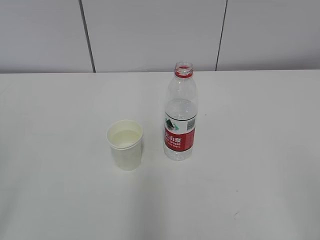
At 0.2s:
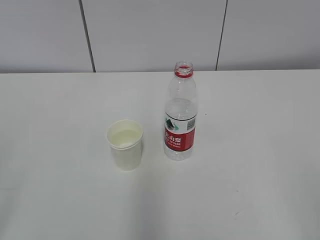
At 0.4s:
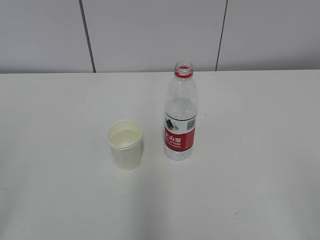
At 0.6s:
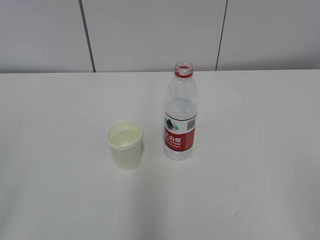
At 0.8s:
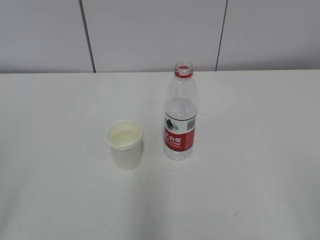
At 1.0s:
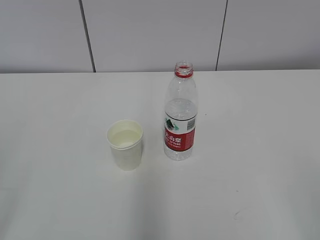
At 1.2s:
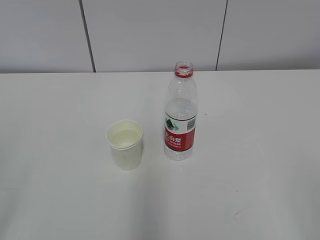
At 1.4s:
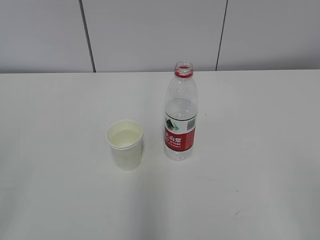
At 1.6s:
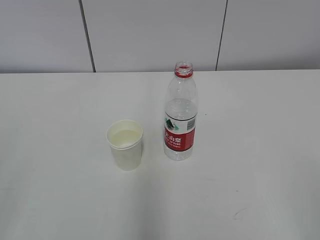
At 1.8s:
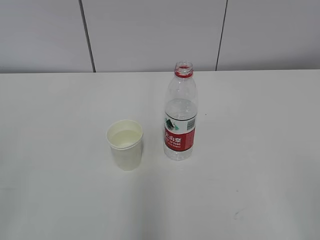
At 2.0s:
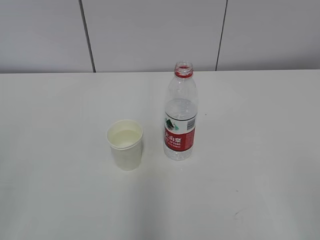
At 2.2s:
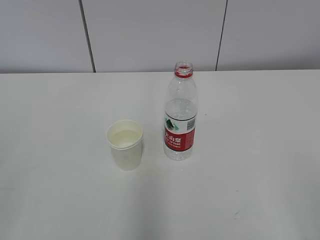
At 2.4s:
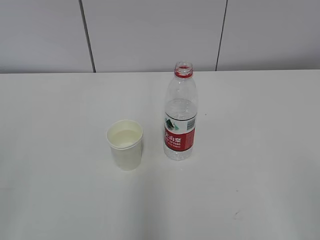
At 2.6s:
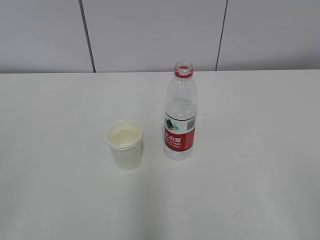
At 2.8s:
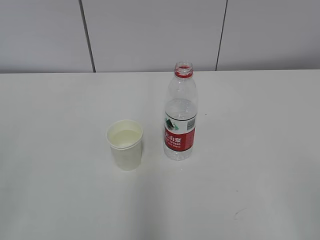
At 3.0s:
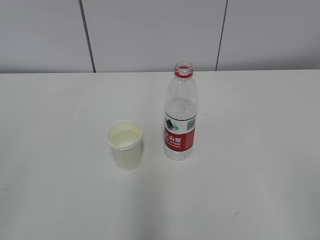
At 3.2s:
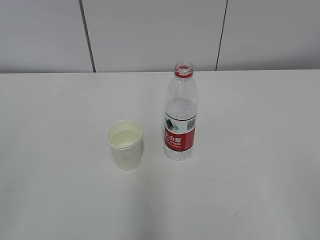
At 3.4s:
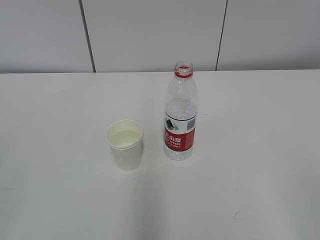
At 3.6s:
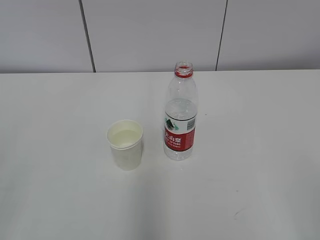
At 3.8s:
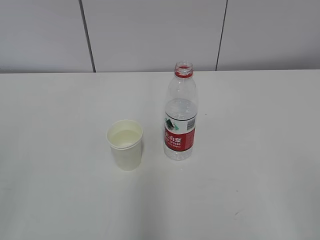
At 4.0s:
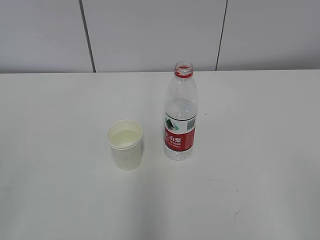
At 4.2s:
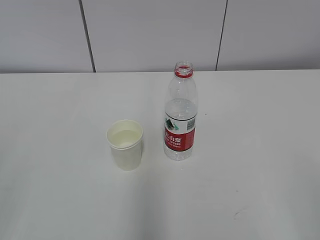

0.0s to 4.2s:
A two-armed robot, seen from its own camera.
2.8s to 4.2s: Neither gripper changes place.

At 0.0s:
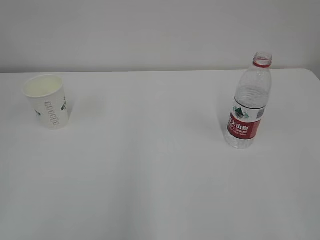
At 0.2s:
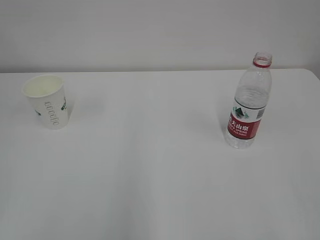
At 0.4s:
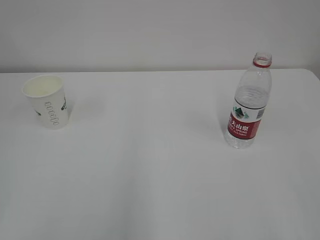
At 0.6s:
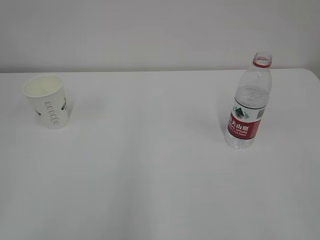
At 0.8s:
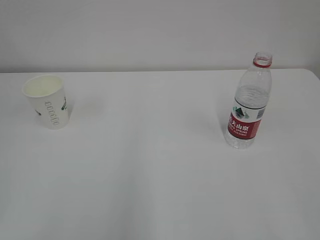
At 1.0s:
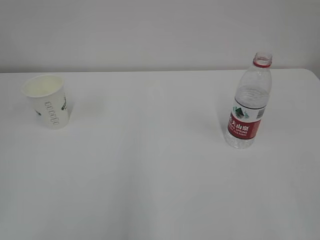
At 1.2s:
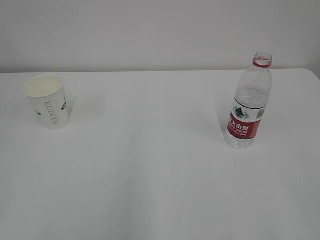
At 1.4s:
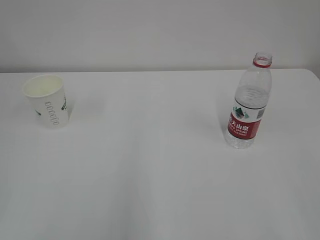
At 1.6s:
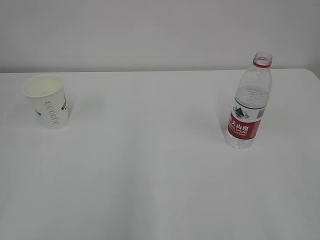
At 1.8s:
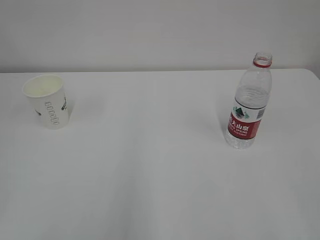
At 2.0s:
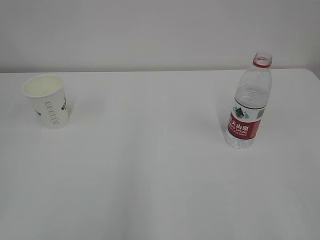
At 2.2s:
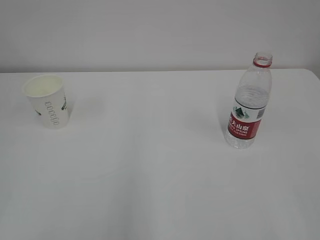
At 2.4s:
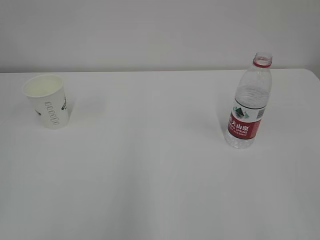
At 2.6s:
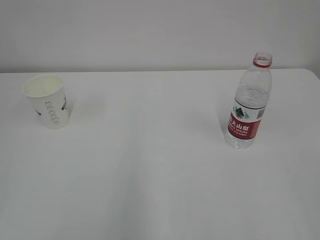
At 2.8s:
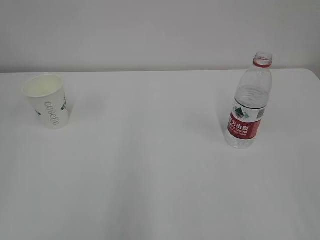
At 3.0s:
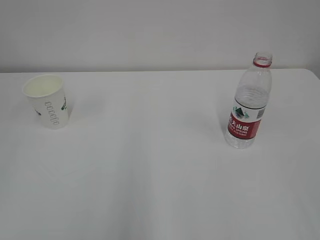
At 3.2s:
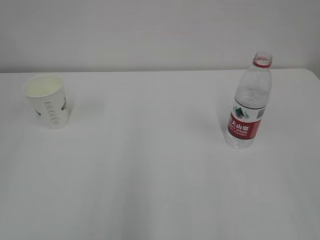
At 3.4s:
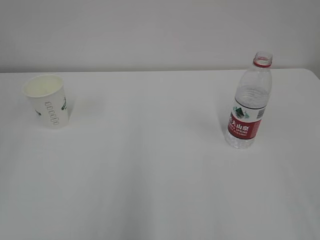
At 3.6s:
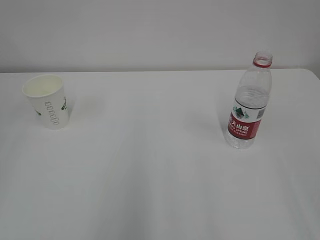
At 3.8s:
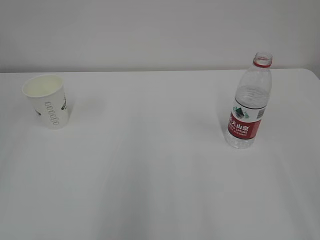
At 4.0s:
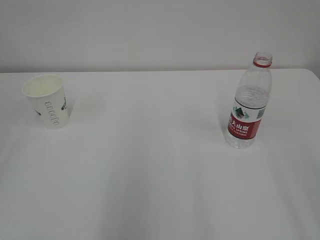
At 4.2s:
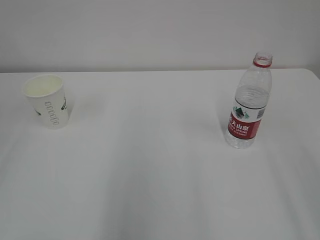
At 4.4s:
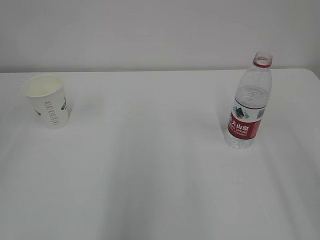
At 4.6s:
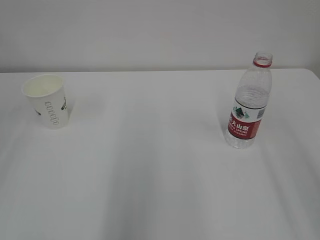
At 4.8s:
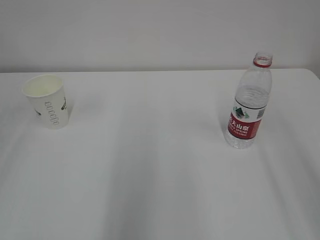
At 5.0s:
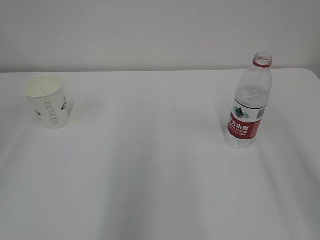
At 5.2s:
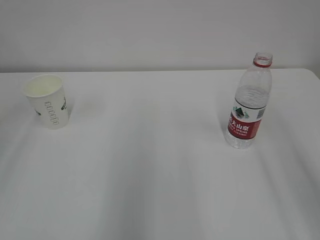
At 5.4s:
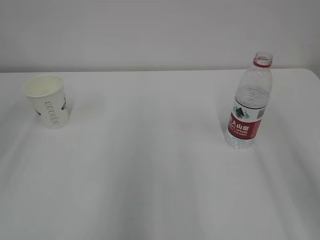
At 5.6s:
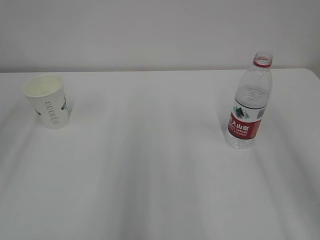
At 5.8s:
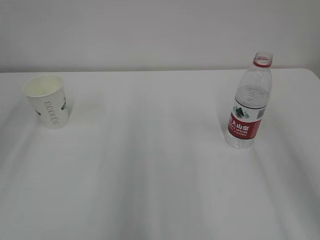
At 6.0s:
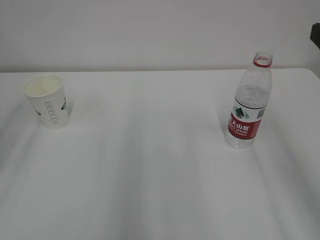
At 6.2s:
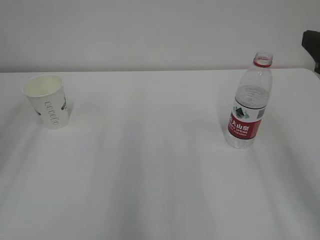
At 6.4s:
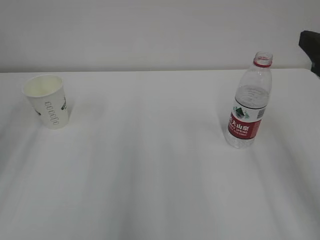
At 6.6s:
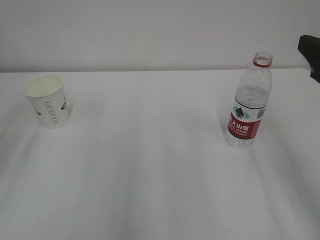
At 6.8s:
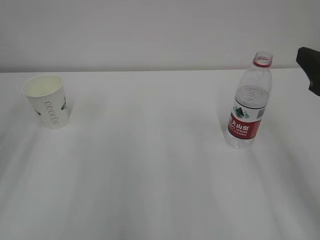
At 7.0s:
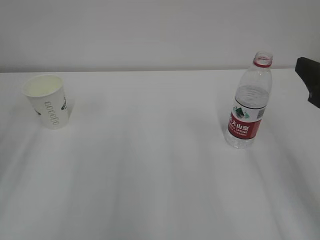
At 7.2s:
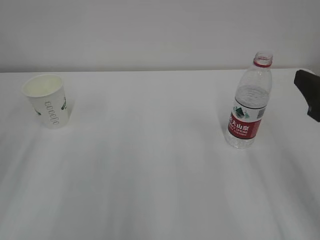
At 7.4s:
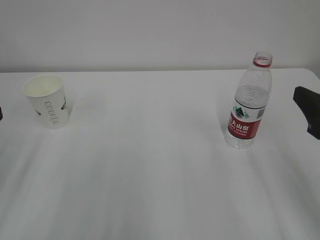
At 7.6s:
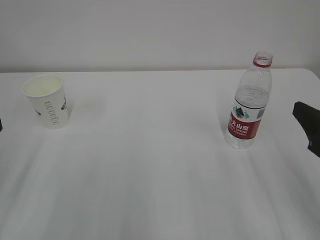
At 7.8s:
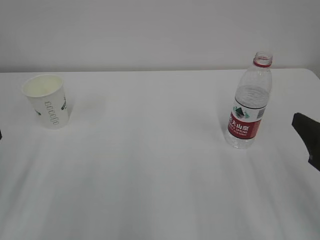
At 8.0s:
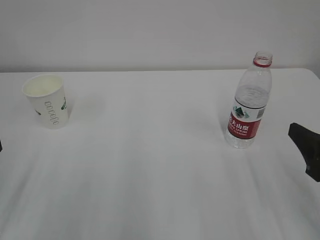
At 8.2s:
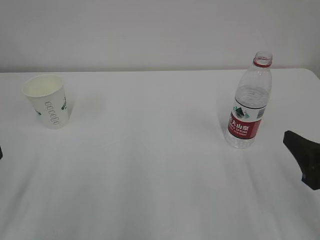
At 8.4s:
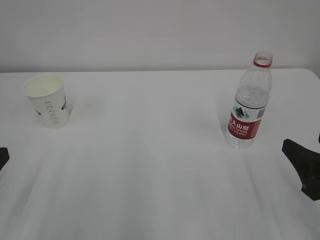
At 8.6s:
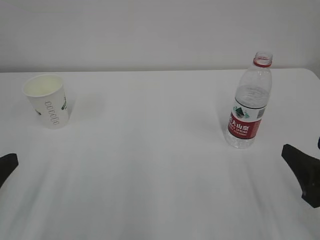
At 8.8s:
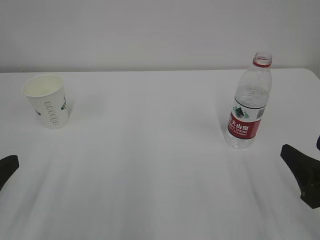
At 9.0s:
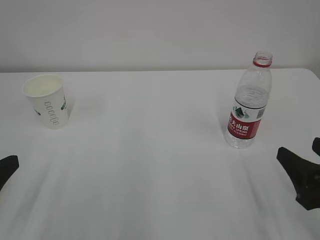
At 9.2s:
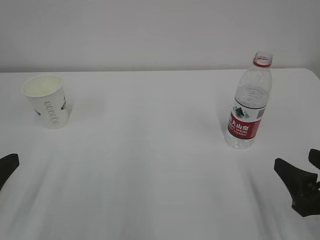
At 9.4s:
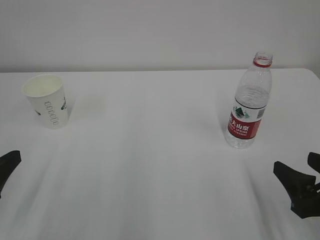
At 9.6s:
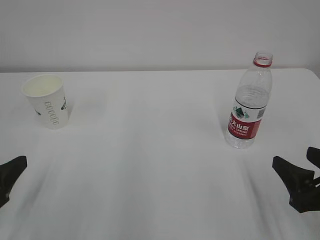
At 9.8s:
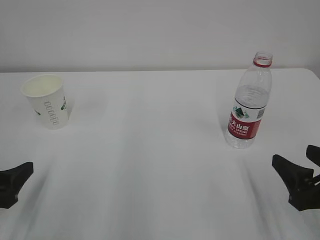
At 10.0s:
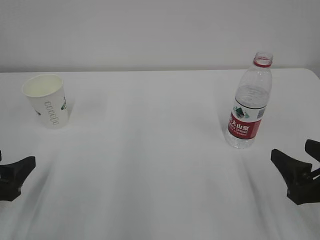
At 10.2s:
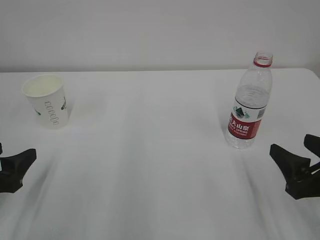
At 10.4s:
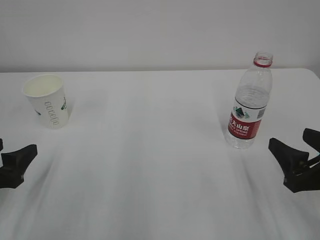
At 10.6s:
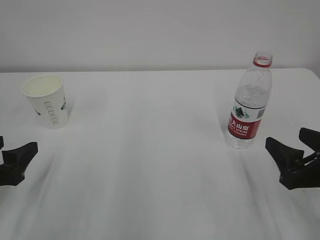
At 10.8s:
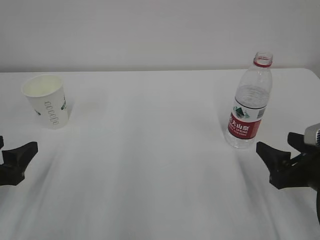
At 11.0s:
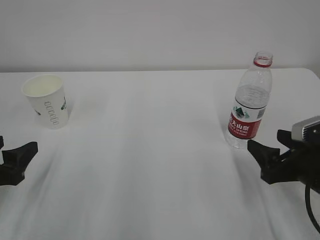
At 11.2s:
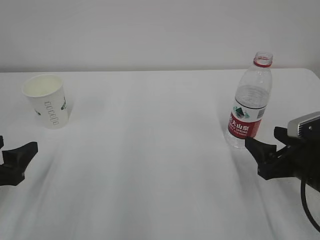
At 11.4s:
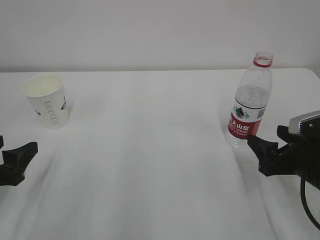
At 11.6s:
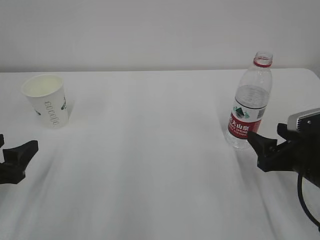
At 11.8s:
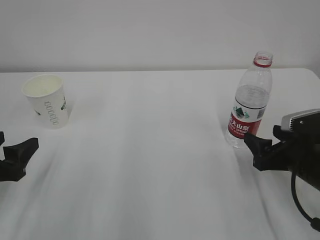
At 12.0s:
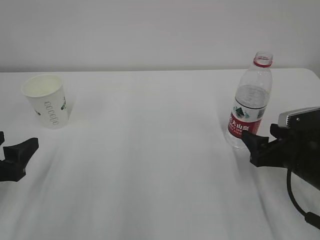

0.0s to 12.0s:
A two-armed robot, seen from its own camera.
6.0s to 7.6s: The right gripper shifts some 10 cm downward.
7.6s to 9.0s: The right gripper moves downward, about 5 cm.
9.0s to 10.4s: The left gripper heads forward, covering about 5 cm.
10.4s to 12.0s: The right gripper is displaced forward by approximately 10 cm.

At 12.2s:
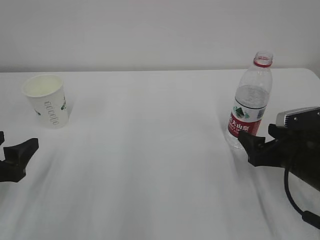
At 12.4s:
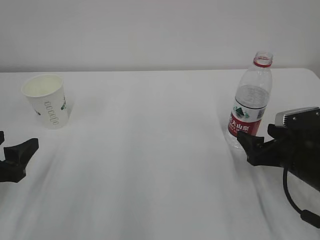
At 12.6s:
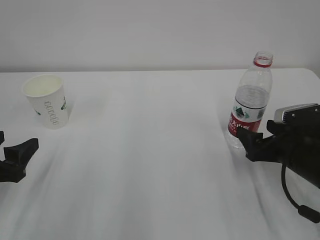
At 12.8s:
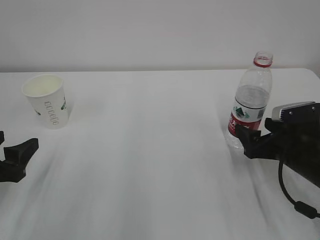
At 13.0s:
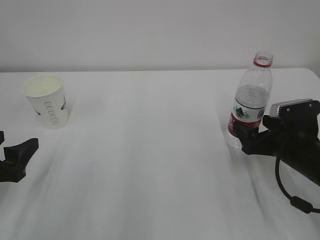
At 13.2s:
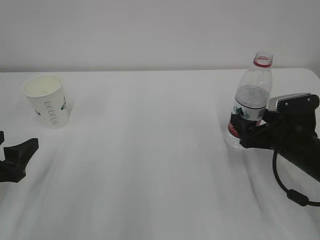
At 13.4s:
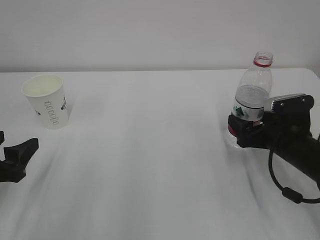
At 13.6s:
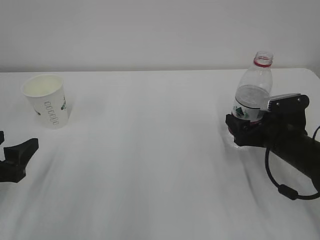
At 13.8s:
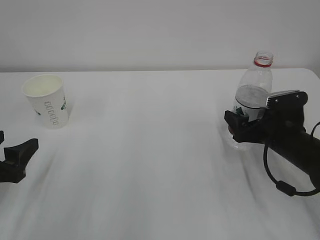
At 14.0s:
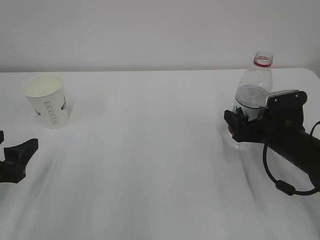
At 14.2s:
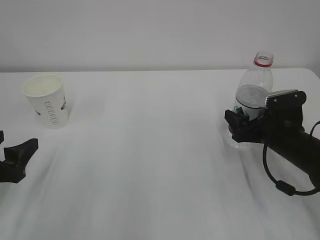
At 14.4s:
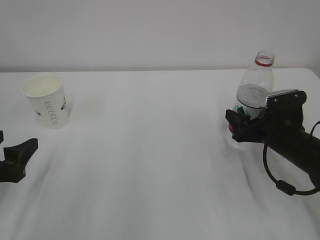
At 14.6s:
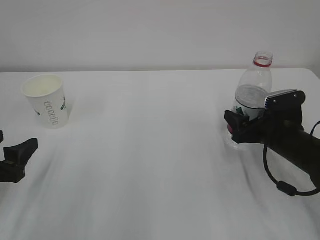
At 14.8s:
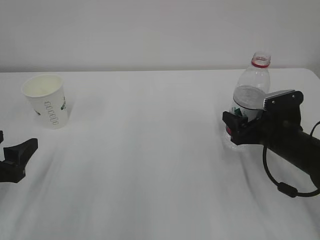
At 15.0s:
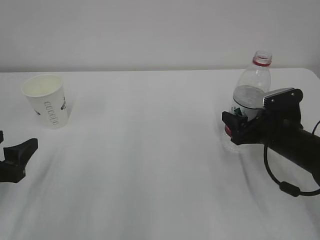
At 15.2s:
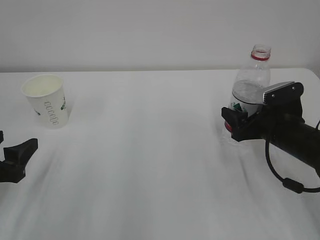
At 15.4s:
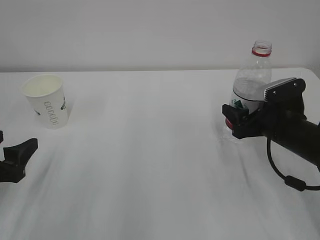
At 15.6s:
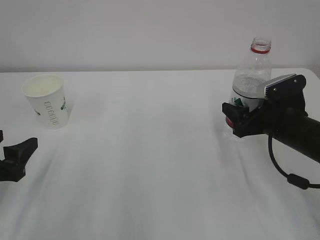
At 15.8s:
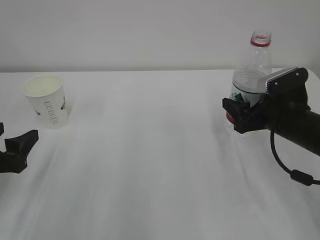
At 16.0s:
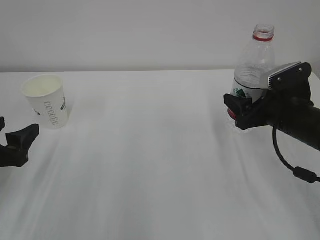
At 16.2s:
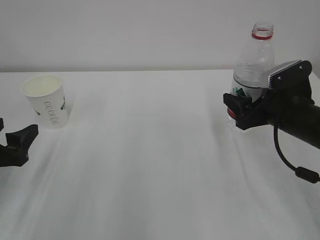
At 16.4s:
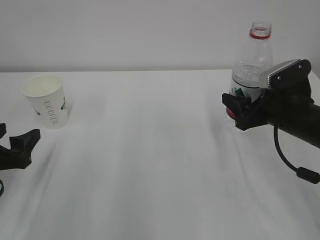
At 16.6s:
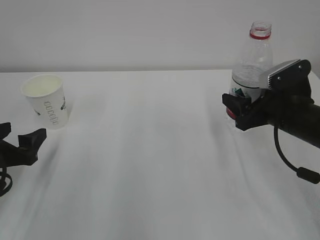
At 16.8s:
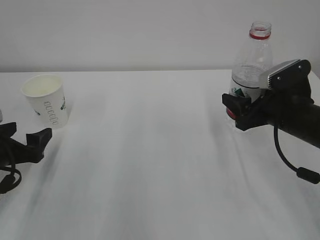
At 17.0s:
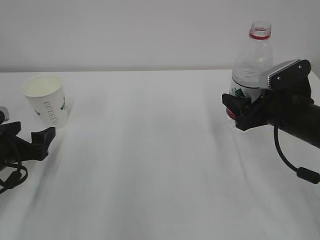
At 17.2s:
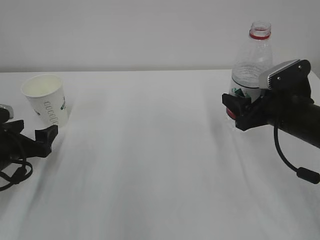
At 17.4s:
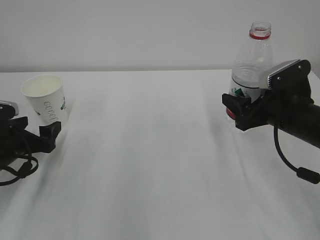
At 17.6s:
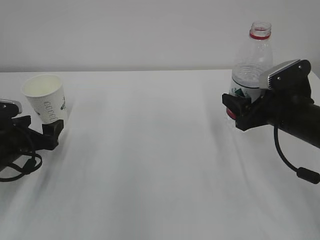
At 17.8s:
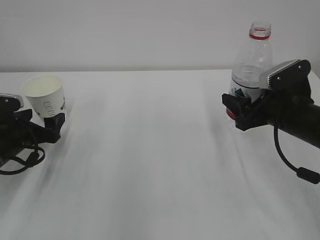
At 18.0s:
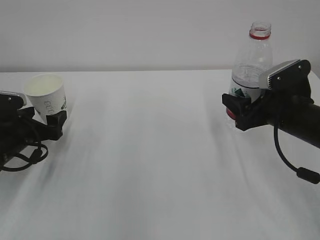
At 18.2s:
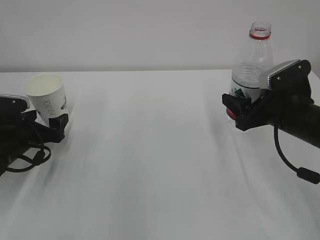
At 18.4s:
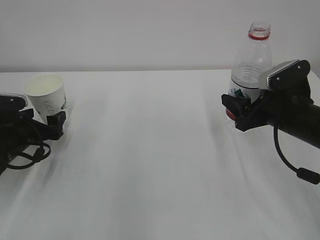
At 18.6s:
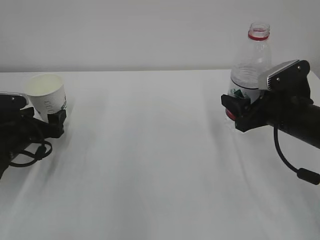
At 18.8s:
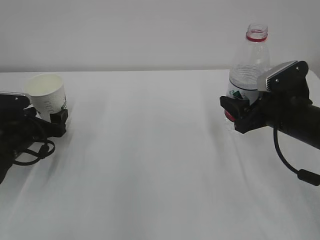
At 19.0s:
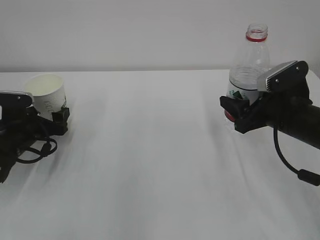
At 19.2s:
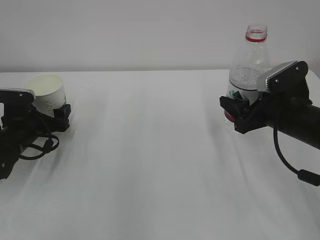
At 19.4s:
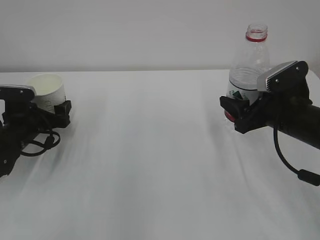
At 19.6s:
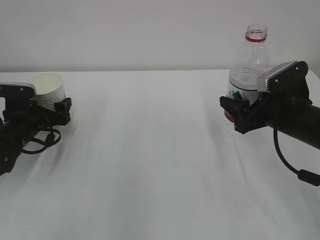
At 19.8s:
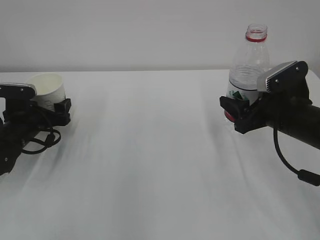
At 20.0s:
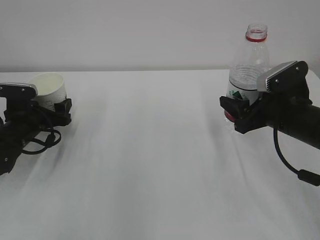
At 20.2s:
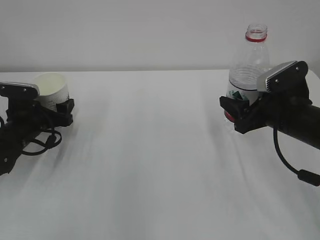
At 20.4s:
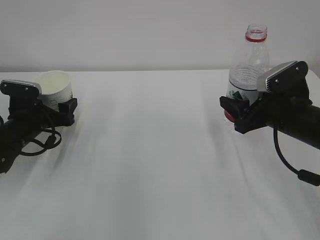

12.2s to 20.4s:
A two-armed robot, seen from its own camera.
12.2s to 13.8s: The right gripper goes about 5 cm forward.
13.8s to 15.4s: The right gripper closes.
15.4s to 17.2s: The left gripper travels forward by some 10 cm, and opens.
17.2s to 18.8s: The left gripper travels forward by approximately 5 cm.
18.8s to 20.4s: The left gripper closes its fingers.
